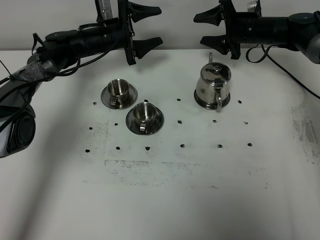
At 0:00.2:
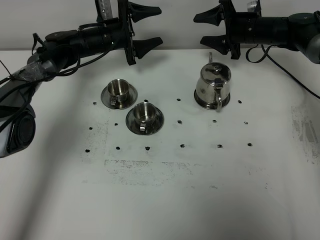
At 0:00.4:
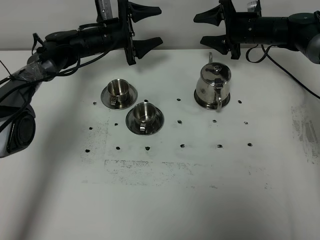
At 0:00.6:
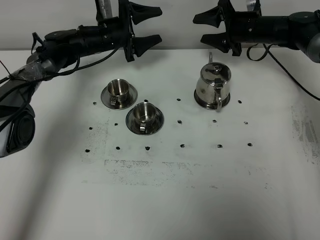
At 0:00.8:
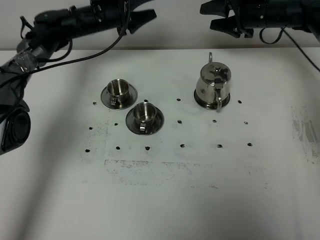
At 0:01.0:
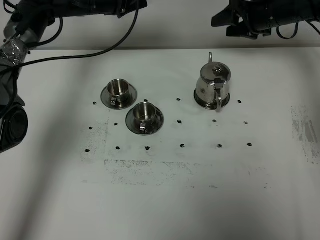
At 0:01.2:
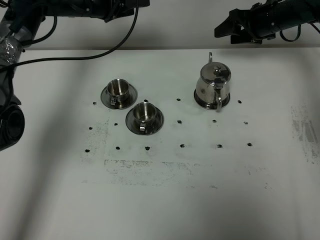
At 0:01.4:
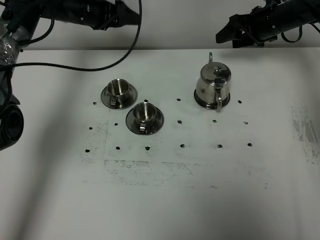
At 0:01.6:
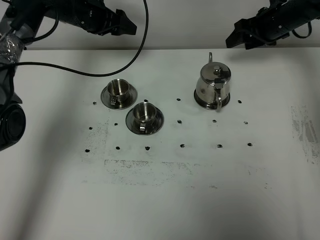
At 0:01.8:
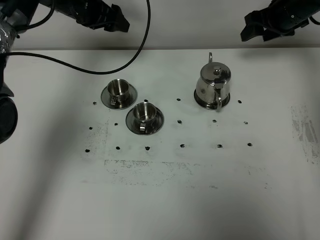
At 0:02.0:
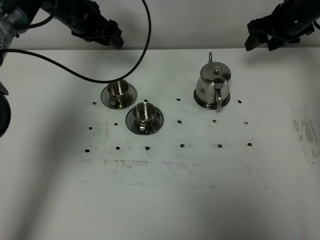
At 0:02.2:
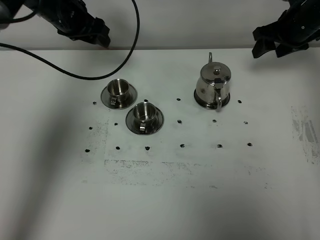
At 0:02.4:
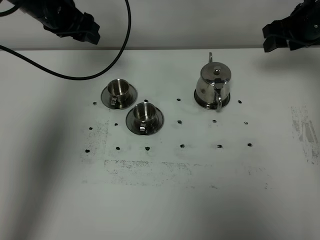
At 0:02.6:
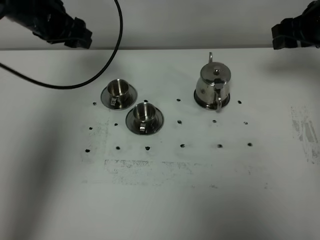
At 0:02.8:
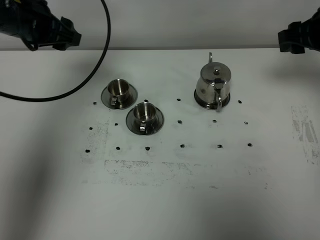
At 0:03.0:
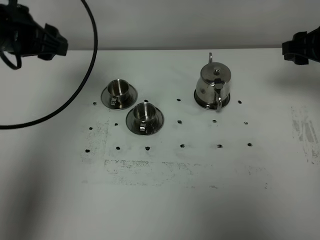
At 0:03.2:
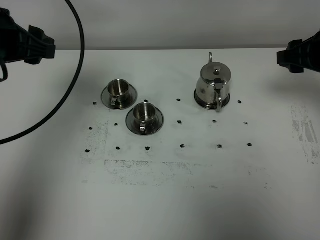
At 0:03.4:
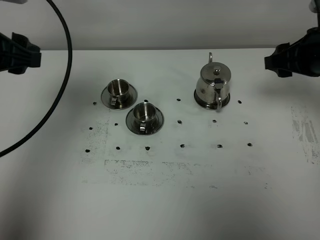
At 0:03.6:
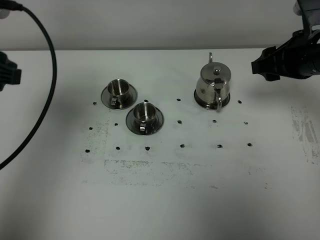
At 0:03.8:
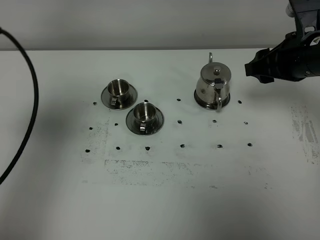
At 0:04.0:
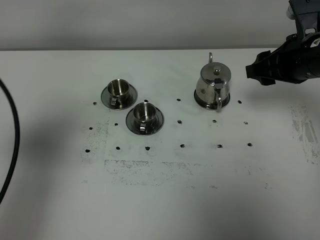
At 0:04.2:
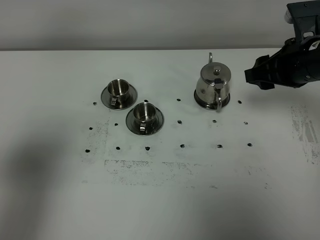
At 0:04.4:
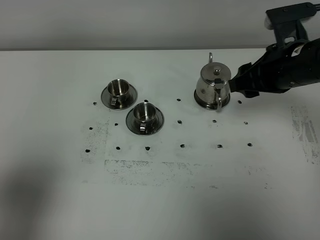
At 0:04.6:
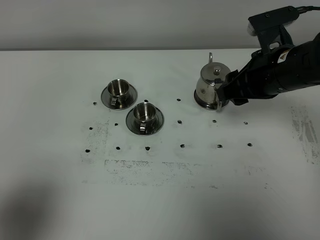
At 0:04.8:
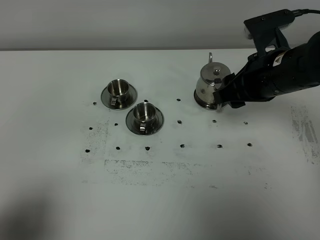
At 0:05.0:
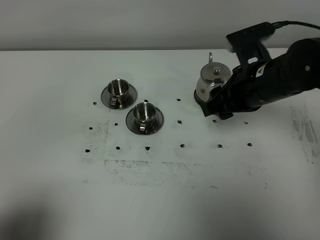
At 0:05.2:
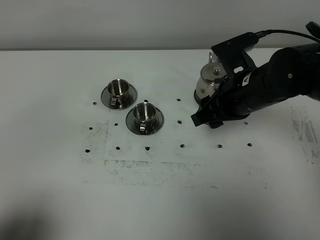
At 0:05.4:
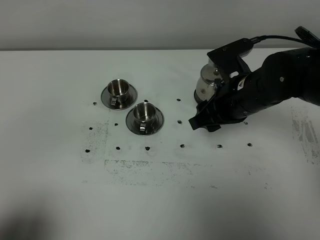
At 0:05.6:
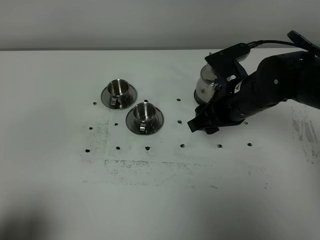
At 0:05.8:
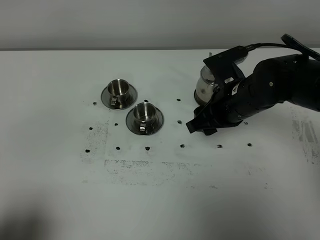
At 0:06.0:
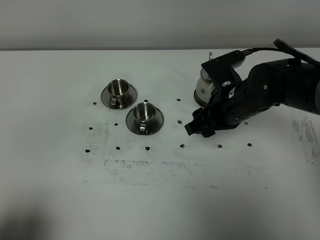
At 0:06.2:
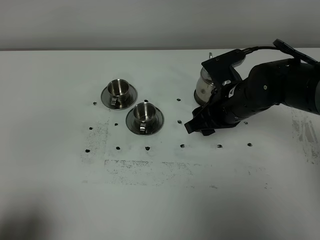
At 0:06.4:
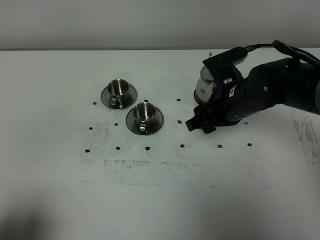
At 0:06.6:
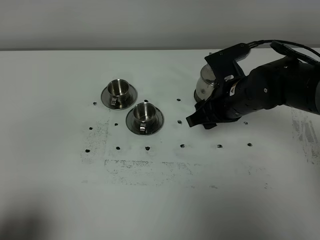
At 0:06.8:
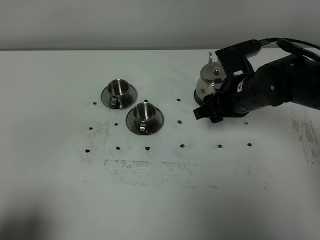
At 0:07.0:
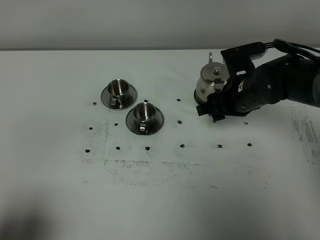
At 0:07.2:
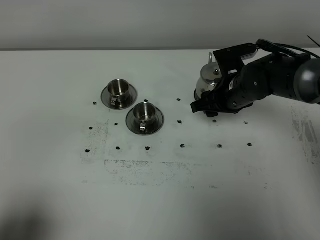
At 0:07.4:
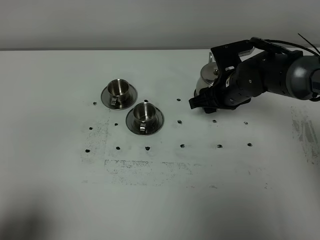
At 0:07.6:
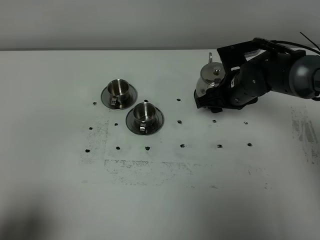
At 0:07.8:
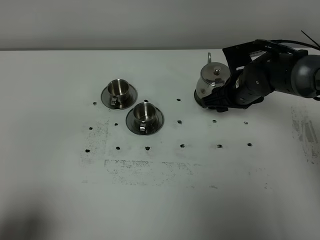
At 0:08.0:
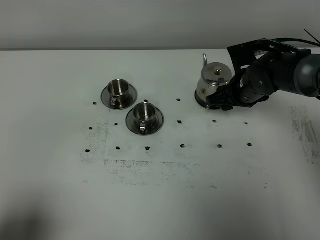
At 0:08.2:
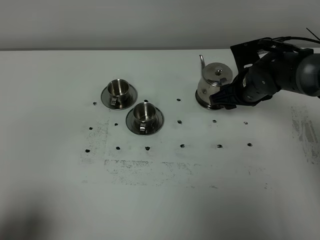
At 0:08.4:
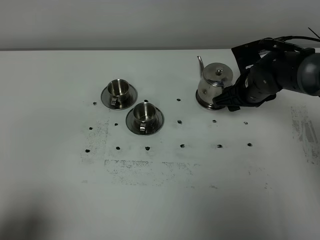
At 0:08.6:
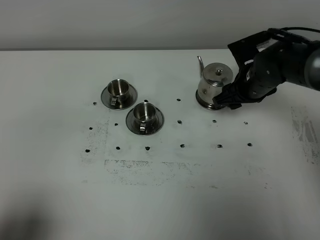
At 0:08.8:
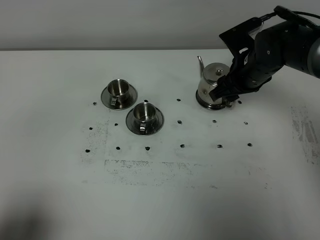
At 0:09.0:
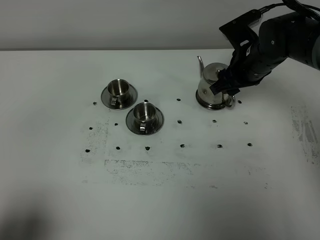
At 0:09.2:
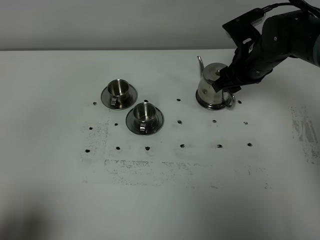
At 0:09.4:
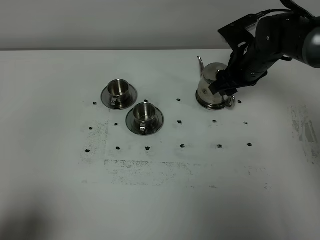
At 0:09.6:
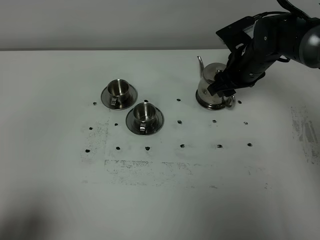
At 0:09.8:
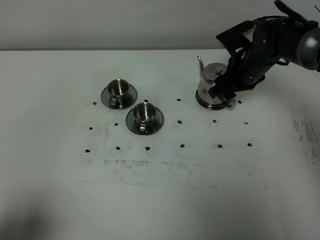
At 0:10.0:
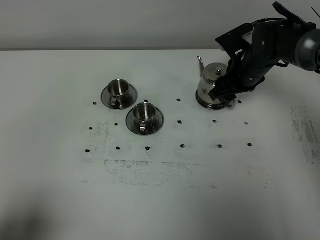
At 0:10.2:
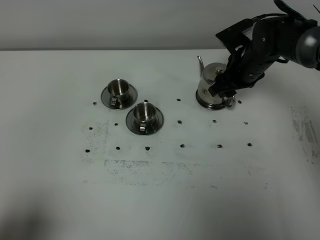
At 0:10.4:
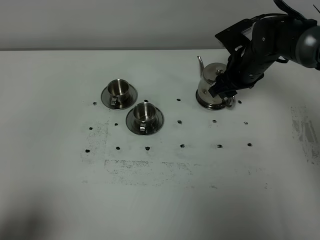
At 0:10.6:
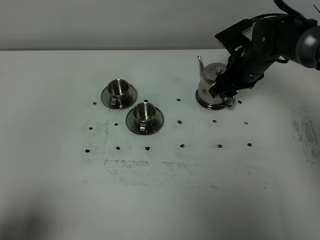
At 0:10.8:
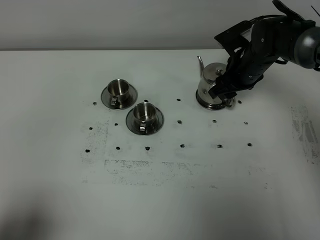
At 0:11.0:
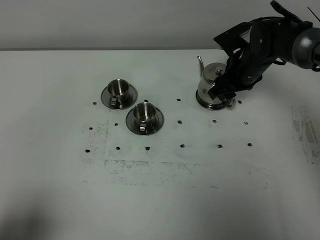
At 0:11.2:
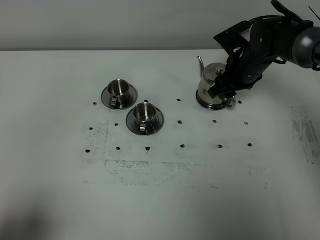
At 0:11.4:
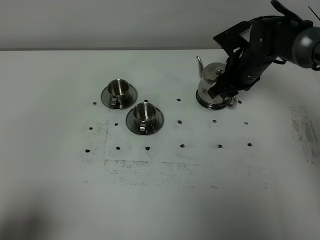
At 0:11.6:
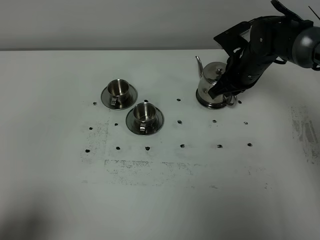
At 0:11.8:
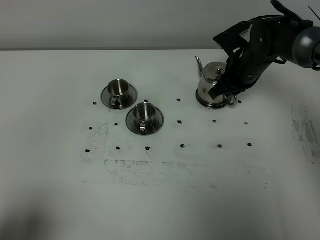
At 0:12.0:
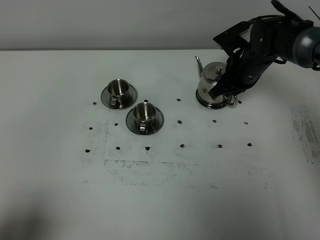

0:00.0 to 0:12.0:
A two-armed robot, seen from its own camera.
Task of the whole recording: grasp the stainless steel teapot and pour the tea into the two stainless steel teacups one by one, put the stainless steel teapot back in its original place.
0:00.0 to 0:01.6: The left gripper shifts some 10 cm upward; the right gripper moves to the right, some 5 cm.
0:01.6 to 0:03.0: The grippers both shift backward and upward by about 20 cm.
0:03.0 to 0:04.4: The left gripper travels backward by some 30 cm. The right gripper shifts about 10 cm to the left.
0:04.4 to 0:06.0: The right gripper is displaced downward and to the left by roughly 10 cm; the left gripper heads downward and backward, covering some 10 cm.
0:06.0 to 0:07.6: The right gripper travels forward by roughly 5 cm.
0:07.6 to 0:09.0: The right gripper moves upward, about 5 cm.
0:09.0 to 0:10.4: The grippers make only small movements.
0:10.4 to 0:12.0: The right gripper closes its fingers.

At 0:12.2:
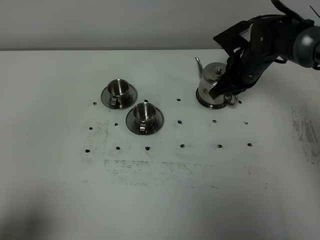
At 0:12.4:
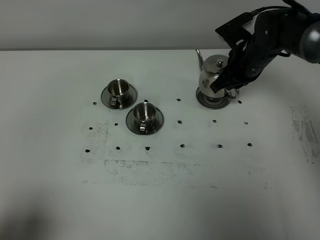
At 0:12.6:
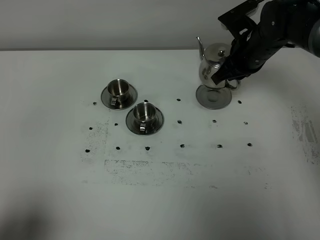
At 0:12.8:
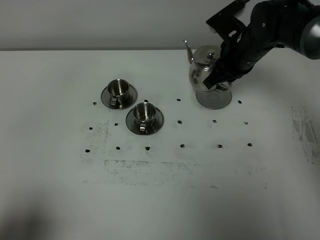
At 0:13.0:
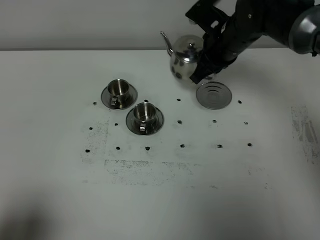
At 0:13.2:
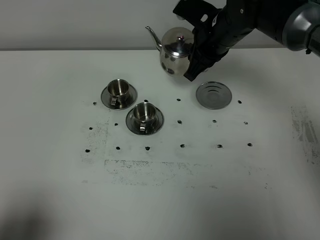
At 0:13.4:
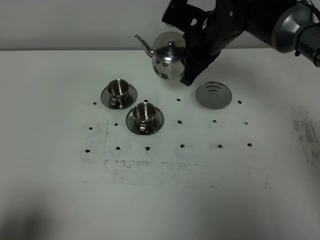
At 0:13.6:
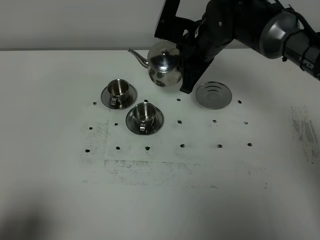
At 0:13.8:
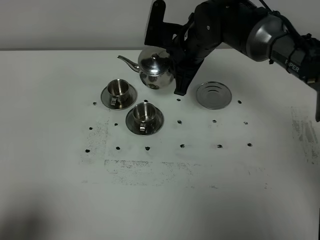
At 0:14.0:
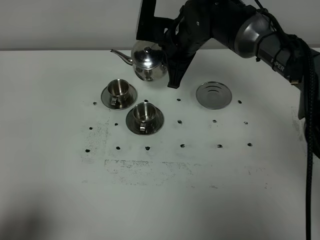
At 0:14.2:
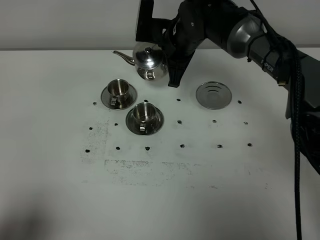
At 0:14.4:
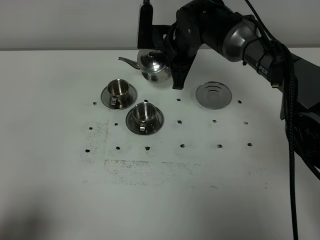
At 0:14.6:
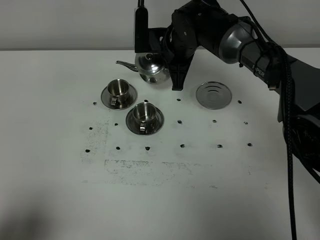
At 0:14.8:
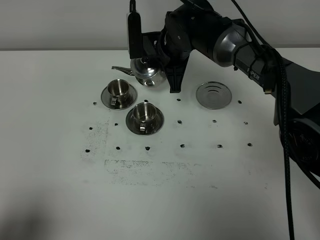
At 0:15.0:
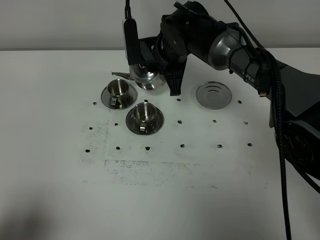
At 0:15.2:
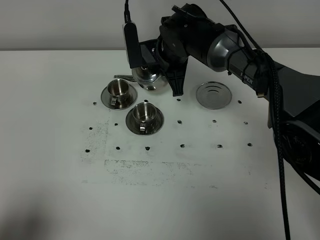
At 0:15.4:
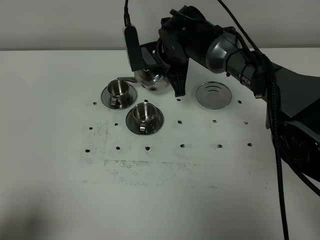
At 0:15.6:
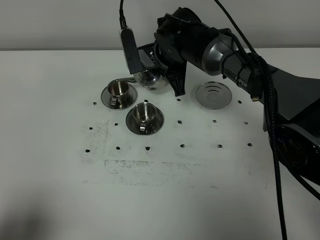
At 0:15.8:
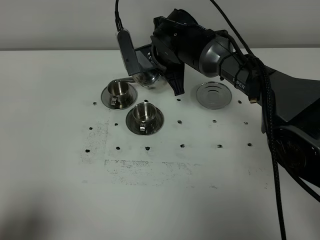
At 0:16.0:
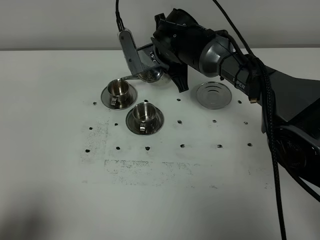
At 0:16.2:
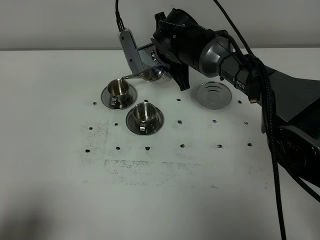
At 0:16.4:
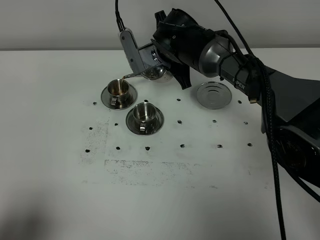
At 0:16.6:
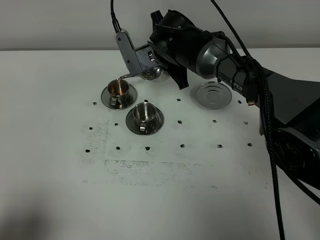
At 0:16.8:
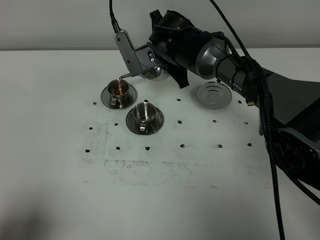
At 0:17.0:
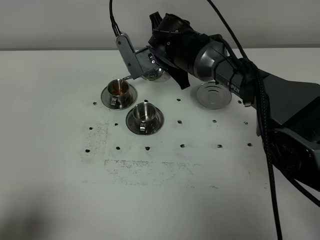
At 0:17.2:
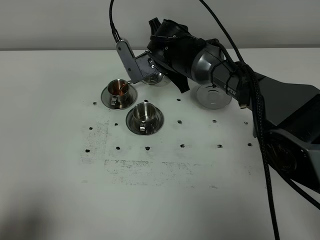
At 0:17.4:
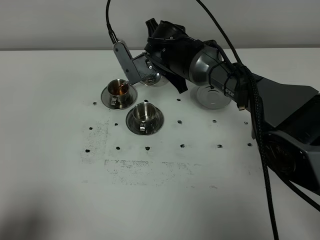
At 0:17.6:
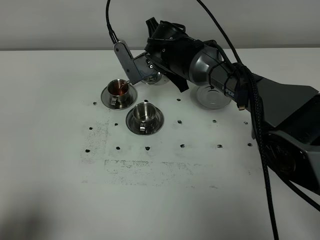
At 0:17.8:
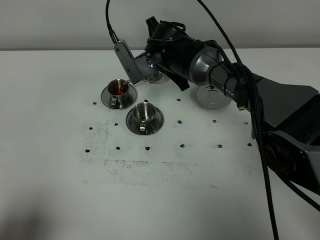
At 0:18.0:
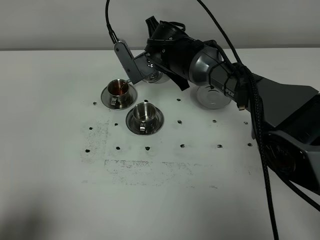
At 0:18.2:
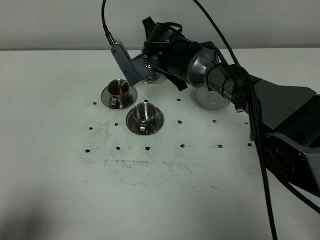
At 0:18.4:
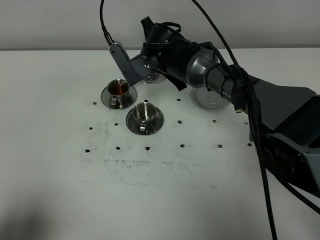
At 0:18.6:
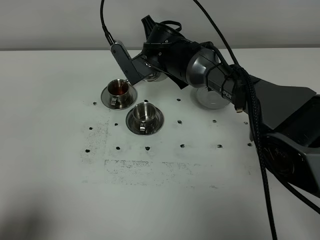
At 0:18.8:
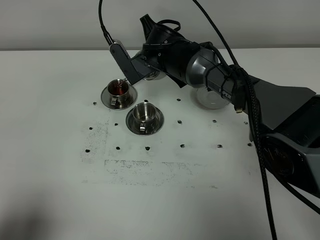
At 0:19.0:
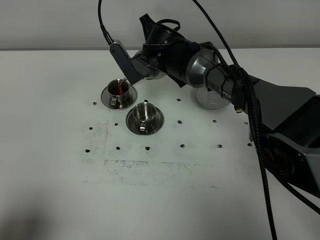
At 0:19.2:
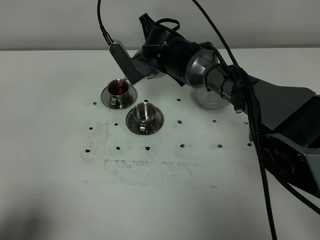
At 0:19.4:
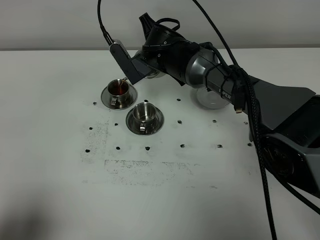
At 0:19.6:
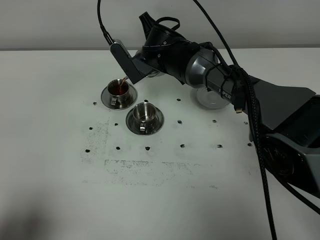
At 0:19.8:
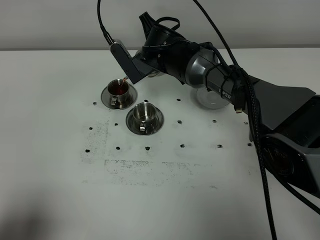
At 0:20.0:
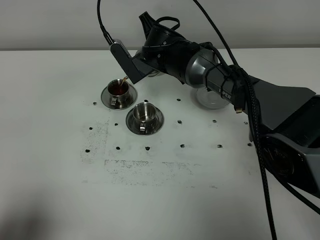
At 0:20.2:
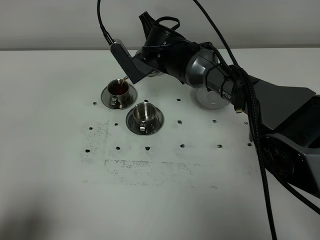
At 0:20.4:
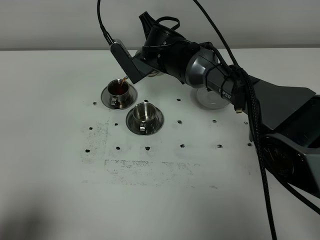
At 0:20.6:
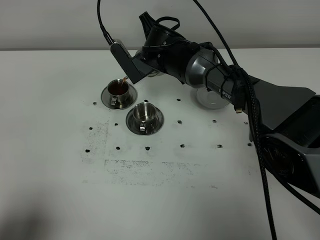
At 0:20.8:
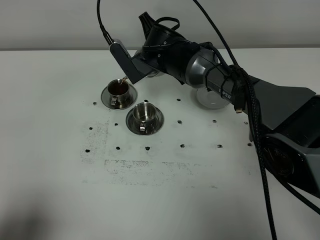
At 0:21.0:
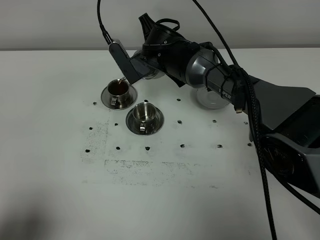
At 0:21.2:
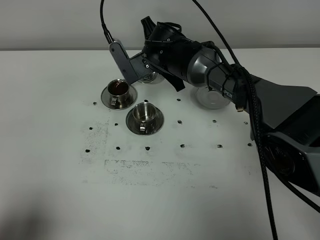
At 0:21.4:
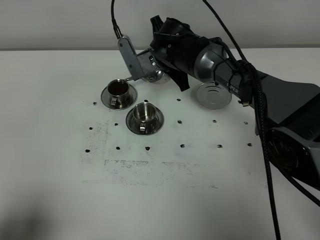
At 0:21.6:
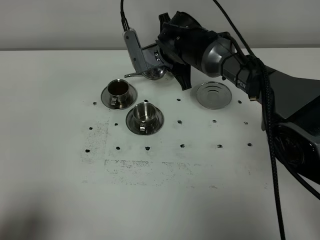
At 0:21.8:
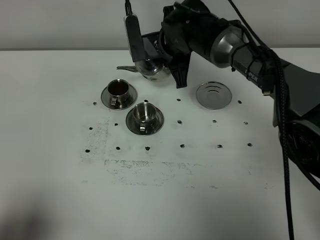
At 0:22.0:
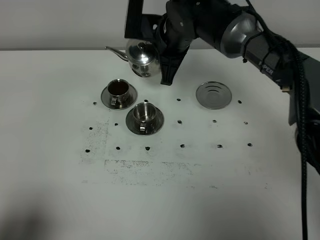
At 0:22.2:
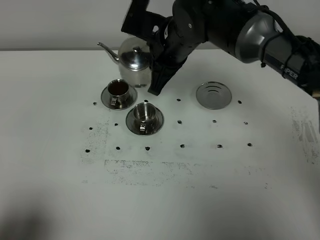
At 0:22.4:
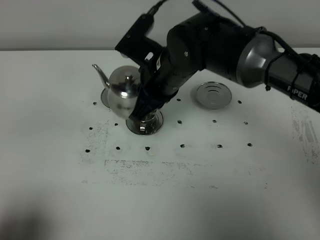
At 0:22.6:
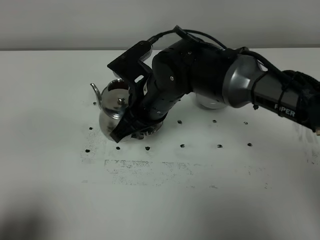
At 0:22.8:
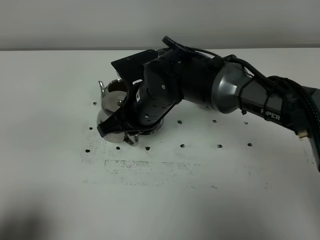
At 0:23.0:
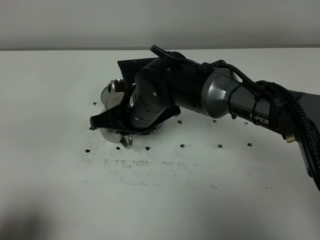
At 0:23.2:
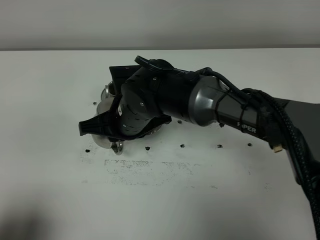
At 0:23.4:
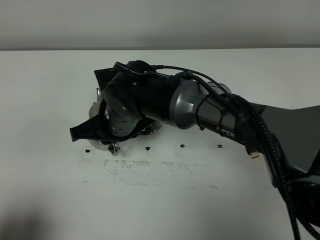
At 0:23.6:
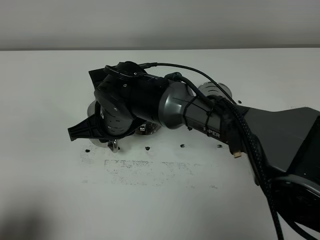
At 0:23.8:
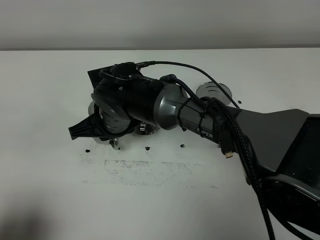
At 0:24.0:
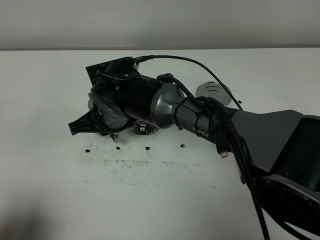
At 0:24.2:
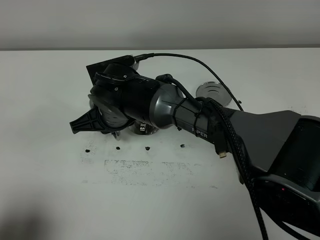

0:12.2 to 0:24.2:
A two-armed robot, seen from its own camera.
Task of the whole recording: grasp the stainless steel teapot and pour the tea into the two stainless steel teacups one by one, put the stainless steel teapot back in its original place.
0:12.2 to 0:13.8: The right gripper is displaced to the left and upward by some 15 cm.
0:15.2 to 0:16.6: There are only small adjustments of the grippers.
0:16.6 to 0:21.2: The grippers move only a little.
0:21.2 to 0:22.6: The right gripper is displaced backward by about 15 cm.
0:22.6 to 0:24.2: The right gripper is displaced to the left by about 5 cm.
